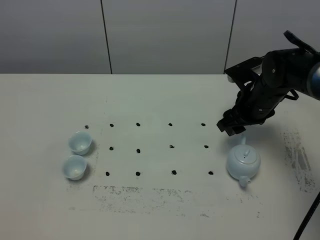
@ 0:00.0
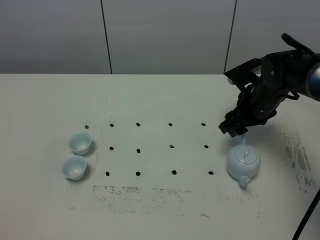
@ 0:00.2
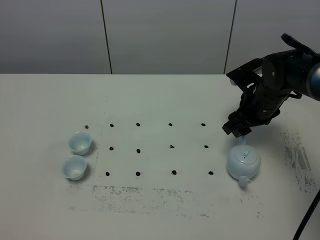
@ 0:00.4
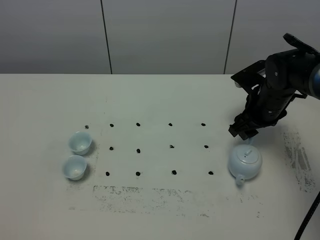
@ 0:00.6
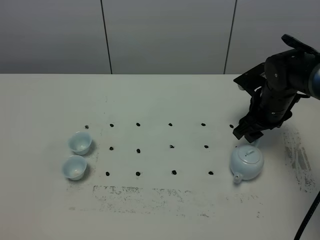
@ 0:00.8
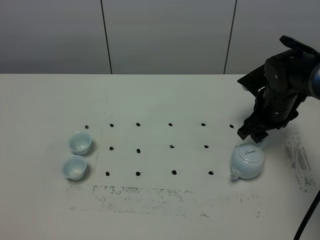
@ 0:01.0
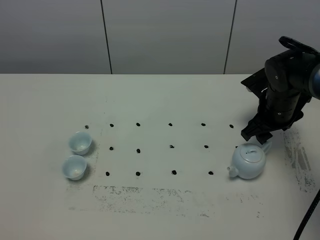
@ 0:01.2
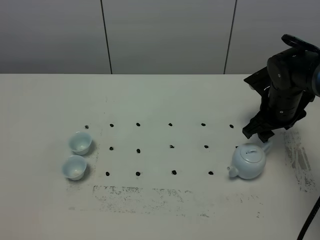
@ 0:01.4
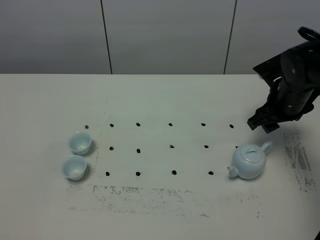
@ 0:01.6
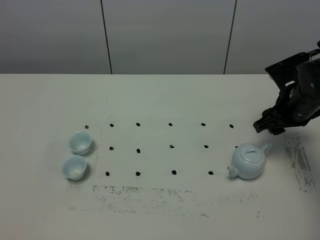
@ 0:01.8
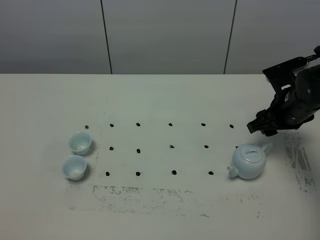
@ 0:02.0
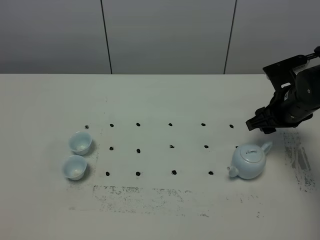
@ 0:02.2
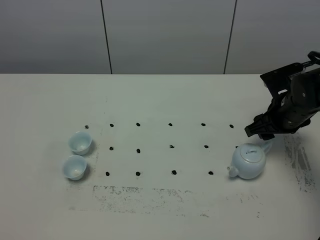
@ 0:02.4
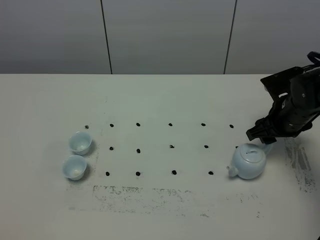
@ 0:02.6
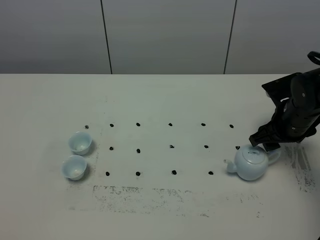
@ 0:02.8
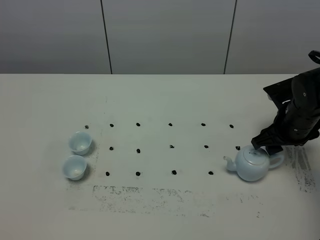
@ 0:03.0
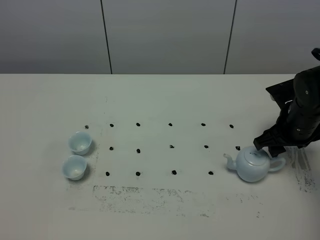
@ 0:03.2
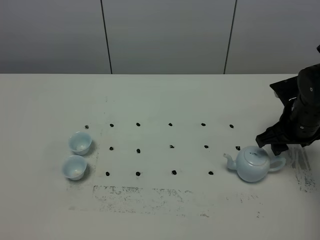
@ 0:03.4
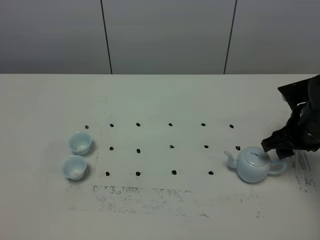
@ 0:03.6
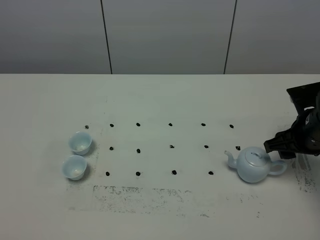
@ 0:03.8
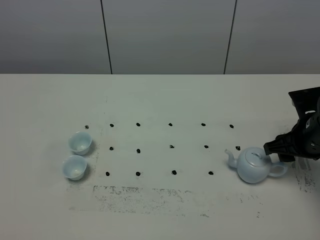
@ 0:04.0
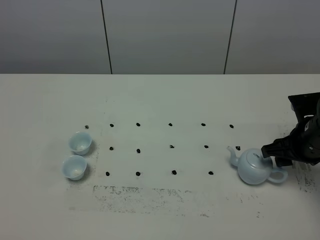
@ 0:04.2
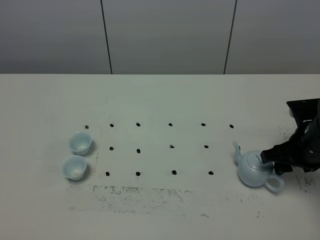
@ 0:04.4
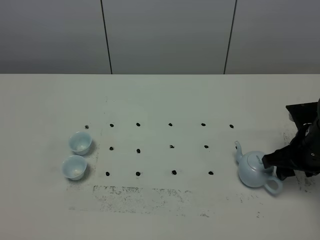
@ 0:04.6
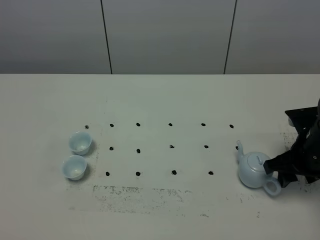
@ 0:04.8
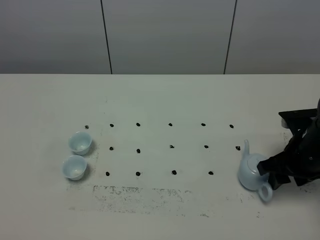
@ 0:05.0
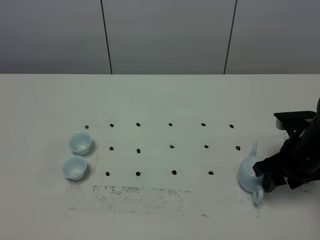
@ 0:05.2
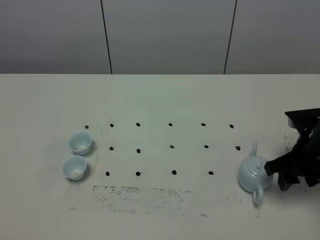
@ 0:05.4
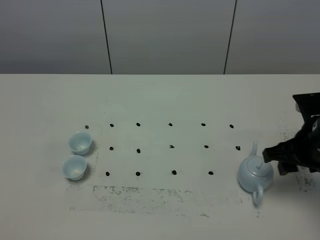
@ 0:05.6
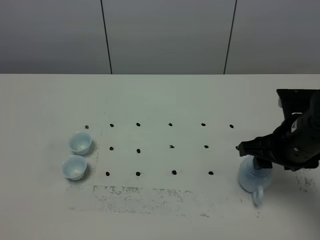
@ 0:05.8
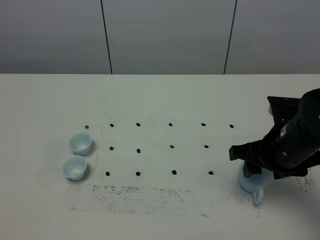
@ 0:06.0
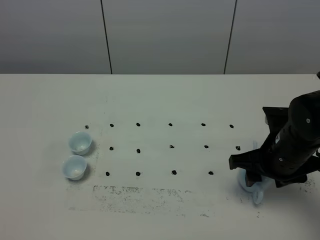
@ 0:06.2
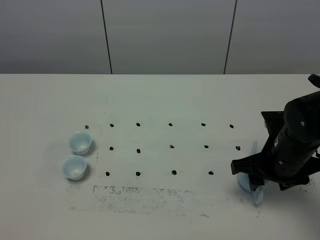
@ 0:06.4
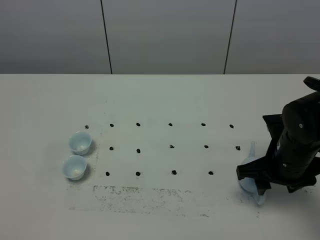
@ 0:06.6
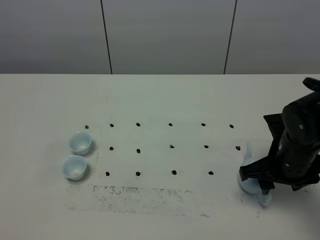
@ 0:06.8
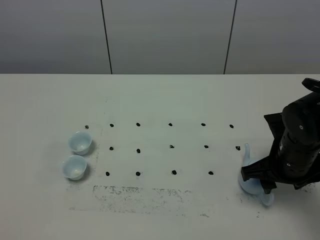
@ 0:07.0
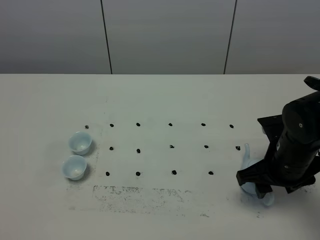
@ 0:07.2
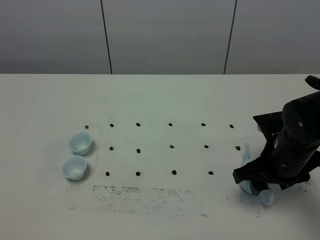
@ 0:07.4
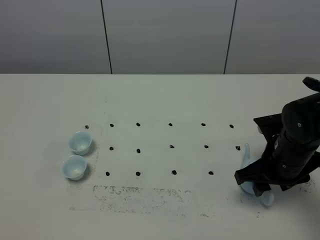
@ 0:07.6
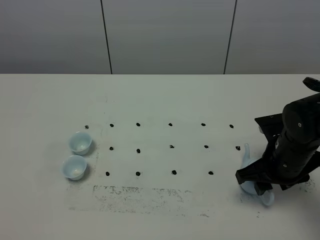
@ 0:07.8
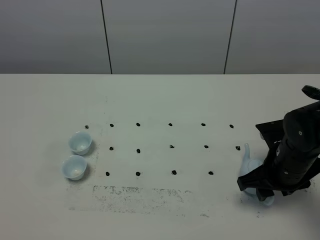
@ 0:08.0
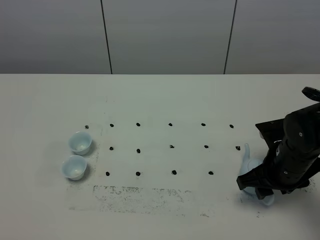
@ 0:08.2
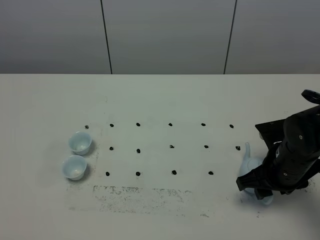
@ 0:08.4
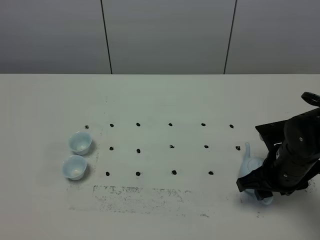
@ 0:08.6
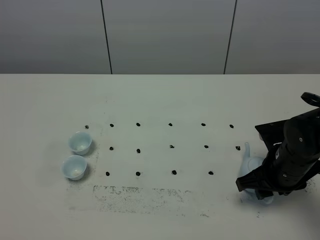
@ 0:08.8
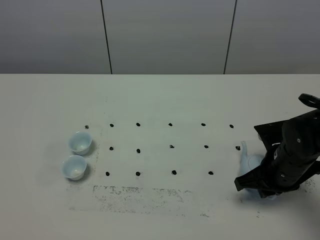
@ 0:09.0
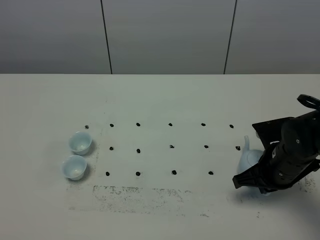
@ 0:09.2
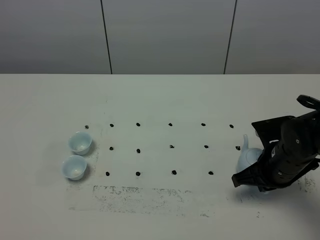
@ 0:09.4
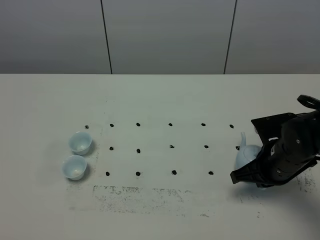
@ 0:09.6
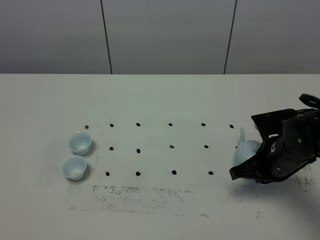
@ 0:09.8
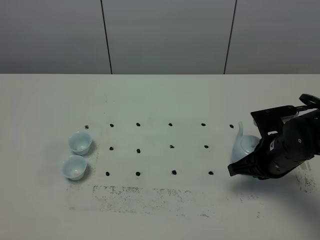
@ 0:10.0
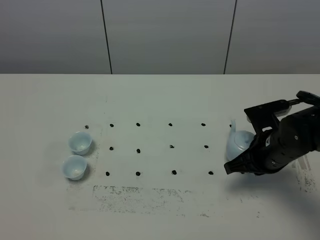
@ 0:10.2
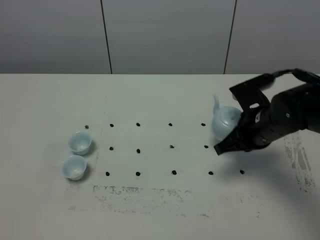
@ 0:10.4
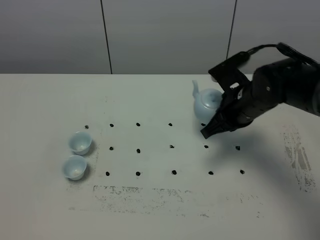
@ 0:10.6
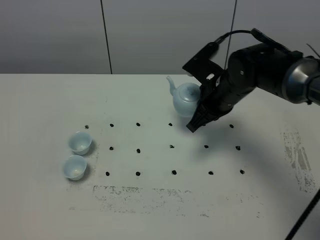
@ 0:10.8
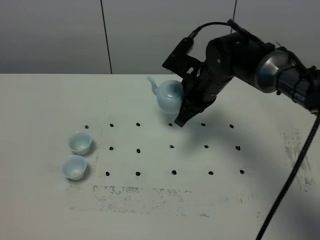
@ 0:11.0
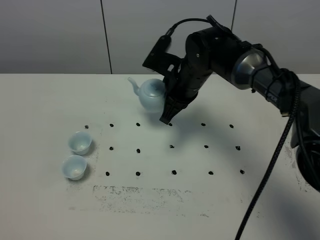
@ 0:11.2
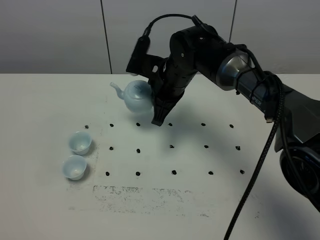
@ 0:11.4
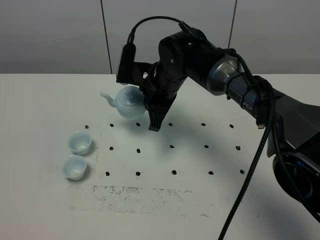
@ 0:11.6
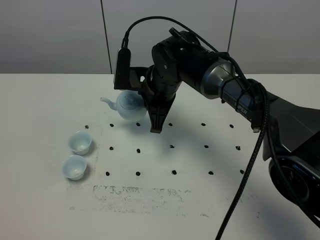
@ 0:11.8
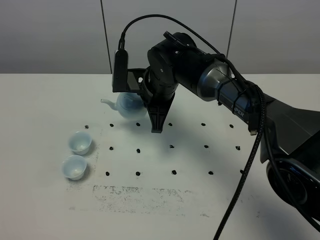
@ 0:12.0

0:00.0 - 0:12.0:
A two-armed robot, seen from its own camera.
Task of the whole recording: grasp the blue porcelain teapot and pour the tea into the two blue porcelain teacups one by one, put the blue porcelain teapot back in its original place.
Step, 0:00.0 - 0:10.2: Pick up the teapot with the right gripper.
0:00.0 - 0:01.6: The right gripper shifts some 5 cm to the right.
0:01.6 - 0:03.0: The grippers move only a little.
0:03.0 - 0:04.4: The right gripper is displaced backward by some 5 cm.
0:04.4 - 0:06.0: The right gripper goes approximately 5 cm to the left.
0:06.0 - 0:07.6: The grippers stay close to where they were, moving slightly.
0:07.6 - 0:09.0: The right gripper closes.
0:09.0 - 0:10.4: The right gripper ends up some 10 cm from where it was.
0:10.4 - 0:12.0: The right gripper shifts roughly 20 cm to the left.

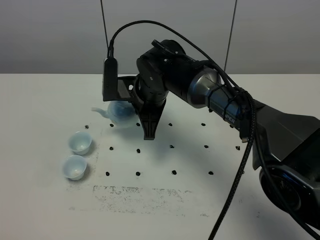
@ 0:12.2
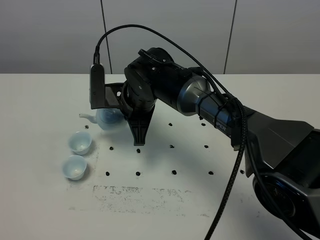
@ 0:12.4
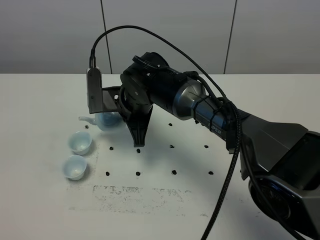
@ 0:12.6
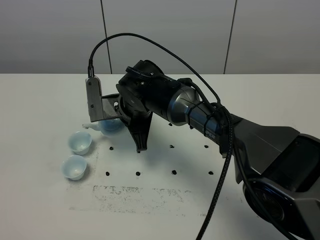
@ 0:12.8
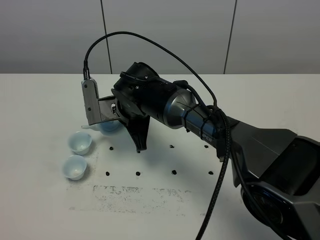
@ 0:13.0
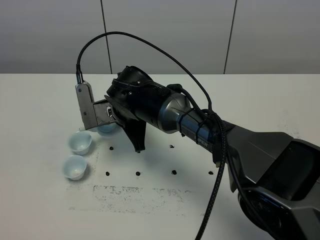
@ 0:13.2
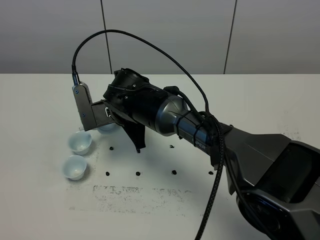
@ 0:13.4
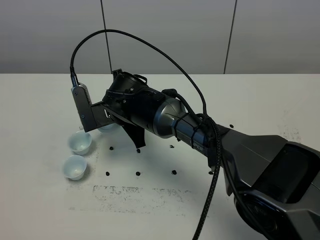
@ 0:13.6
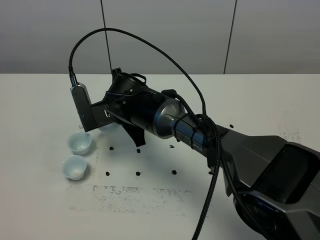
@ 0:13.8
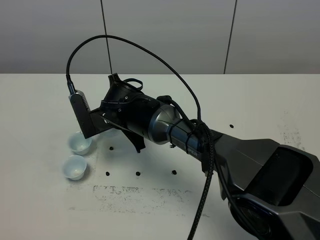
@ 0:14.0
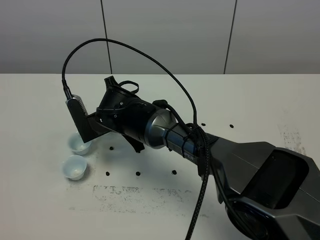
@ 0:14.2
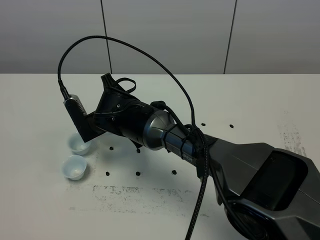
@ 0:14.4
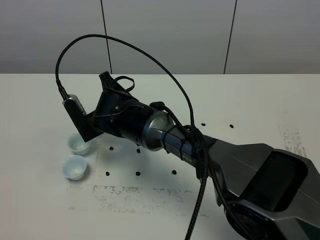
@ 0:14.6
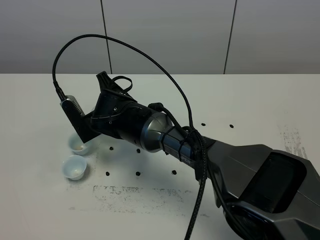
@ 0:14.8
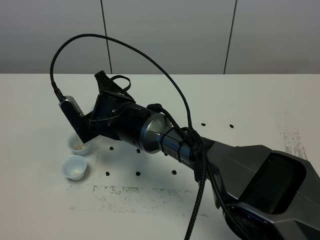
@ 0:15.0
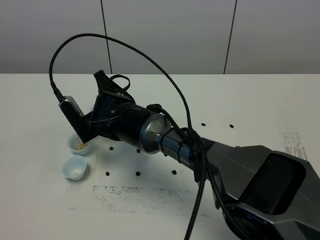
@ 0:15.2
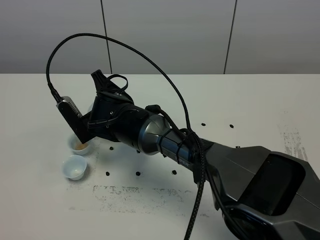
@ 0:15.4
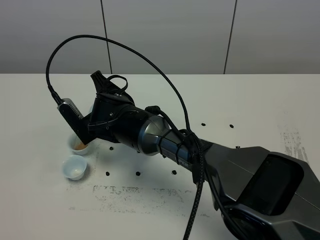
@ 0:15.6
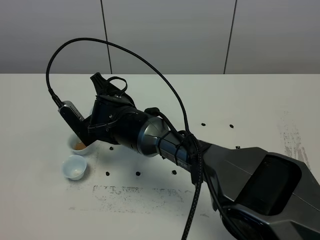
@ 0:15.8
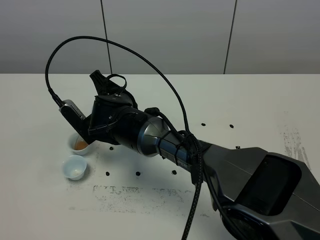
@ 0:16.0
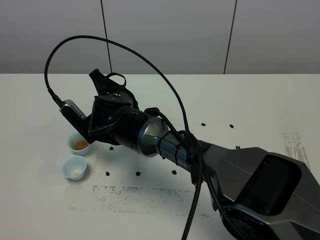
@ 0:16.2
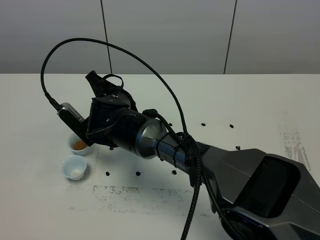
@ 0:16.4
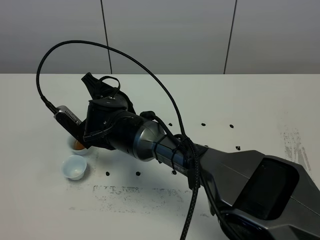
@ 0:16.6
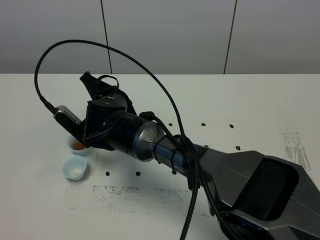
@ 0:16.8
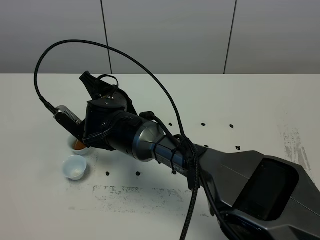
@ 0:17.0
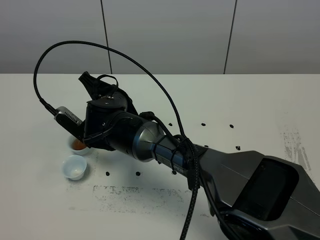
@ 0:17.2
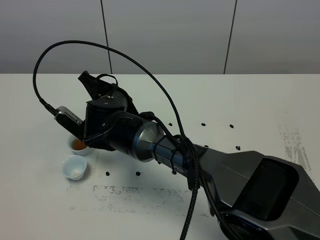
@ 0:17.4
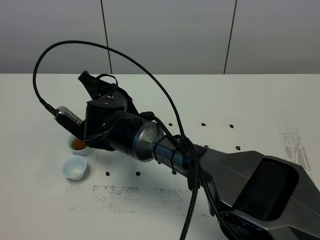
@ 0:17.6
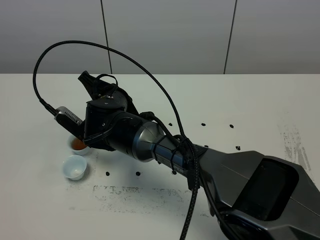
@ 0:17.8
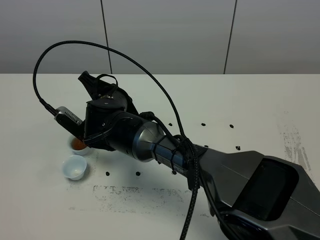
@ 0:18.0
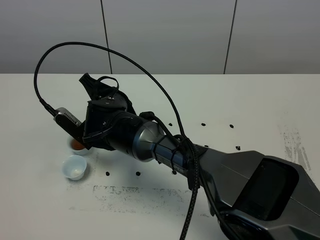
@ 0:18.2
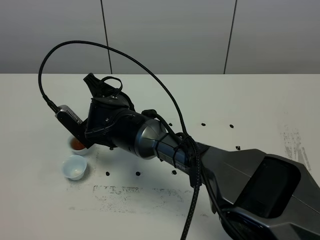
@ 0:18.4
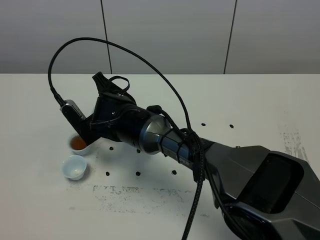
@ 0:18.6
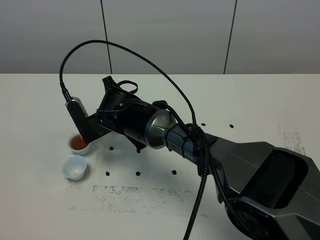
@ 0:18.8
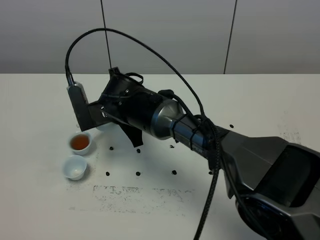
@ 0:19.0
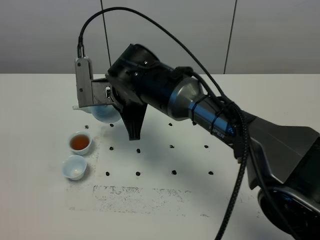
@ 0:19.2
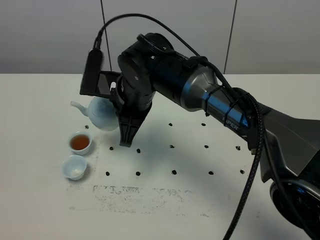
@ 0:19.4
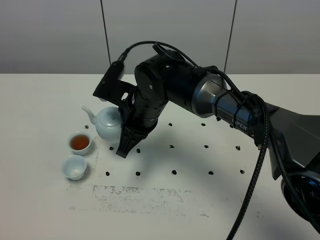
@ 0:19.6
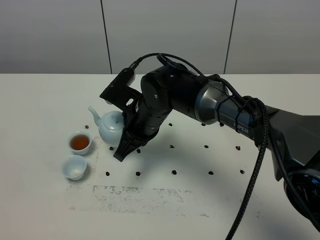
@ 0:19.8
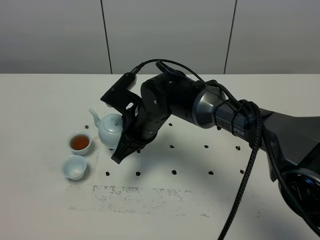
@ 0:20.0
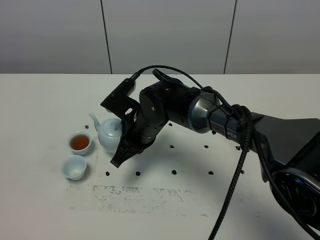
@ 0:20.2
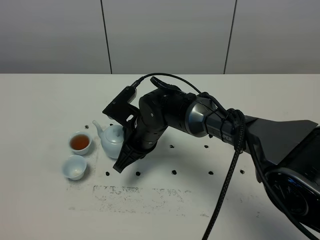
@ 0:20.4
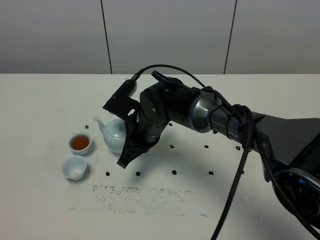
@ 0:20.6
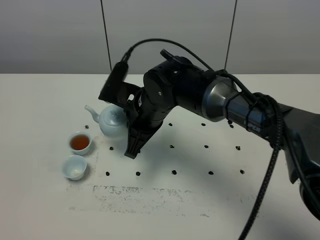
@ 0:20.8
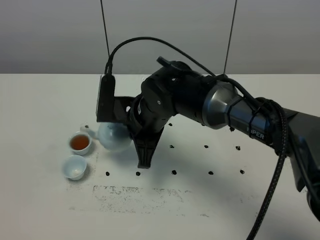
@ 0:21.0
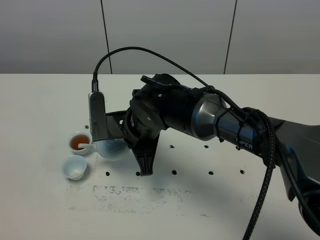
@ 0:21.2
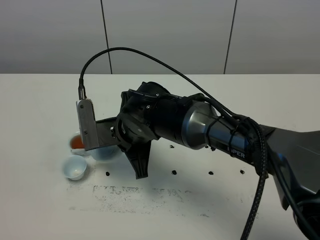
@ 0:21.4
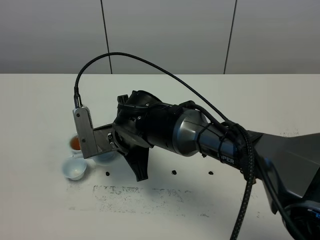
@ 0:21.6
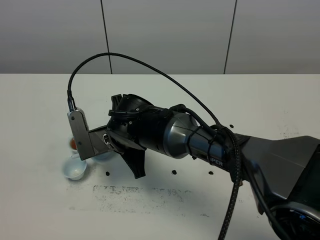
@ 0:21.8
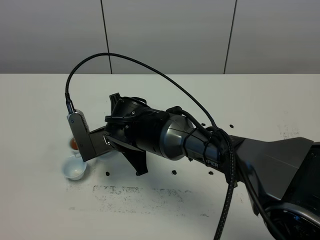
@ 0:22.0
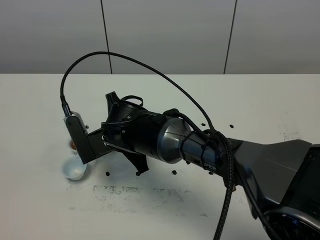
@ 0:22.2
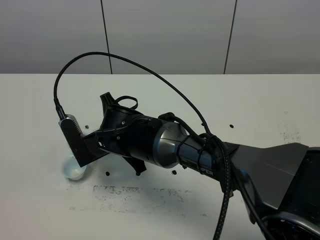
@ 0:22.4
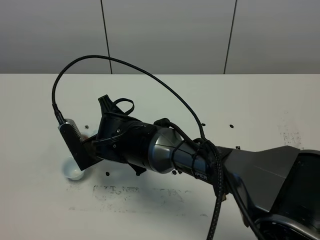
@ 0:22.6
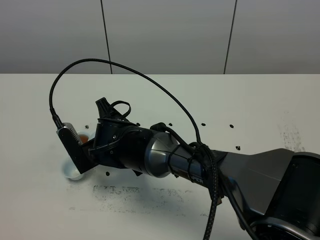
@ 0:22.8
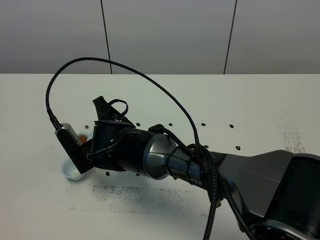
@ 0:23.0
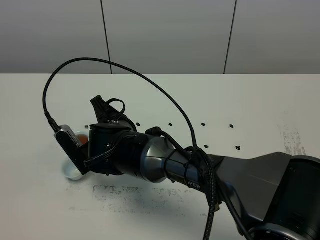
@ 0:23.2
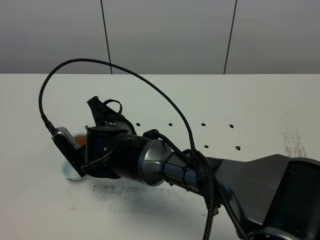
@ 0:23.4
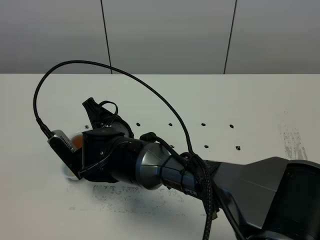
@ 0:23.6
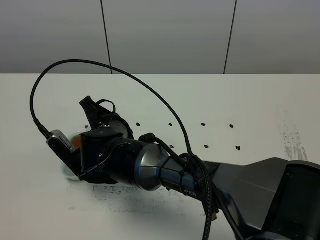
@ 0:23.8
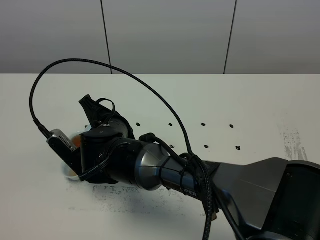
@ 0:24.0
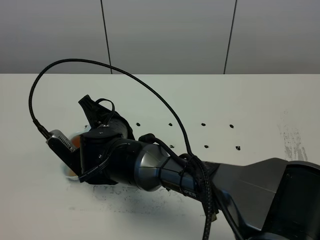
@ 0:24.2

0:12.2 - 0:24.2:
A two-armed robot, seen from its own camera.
Task of the whole recording: grasp the blue porcelain teapot and pour the tea into the two blue porcelain teacups one by one, put the blue porcelain teapot back in its original place.
Step, 0:12.2 - 0:18.8: Pour tea into the teacup with the right gripper.
0:12.2 - 0:13.8: The right gripper ends up approximately 5 cm from where it was.
0:15.2 - 0:18.2: The grippers stay close to where they were, moving slightly.
0:18.2 - 0:19.8: The right gripper moves to the right, about 5 cm.
0:21.2 - 0:22.6: The right gripper shifts by approximately 5 cm.
